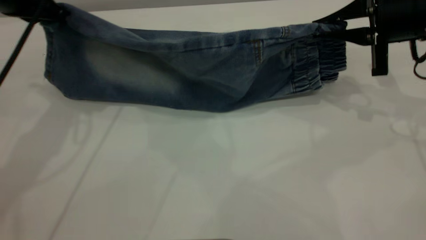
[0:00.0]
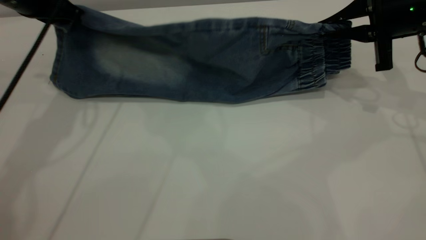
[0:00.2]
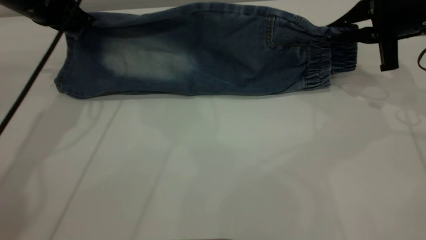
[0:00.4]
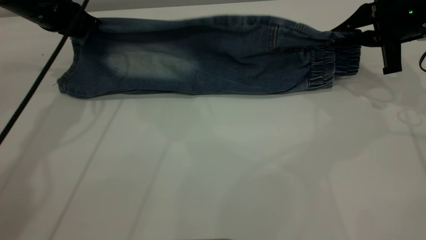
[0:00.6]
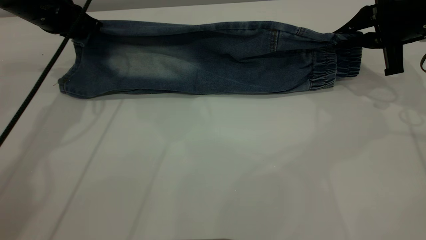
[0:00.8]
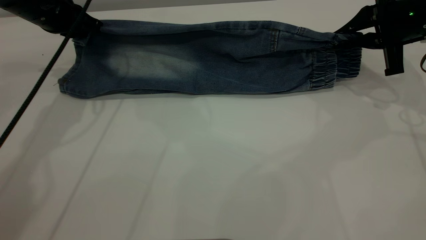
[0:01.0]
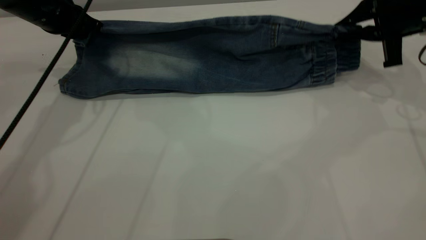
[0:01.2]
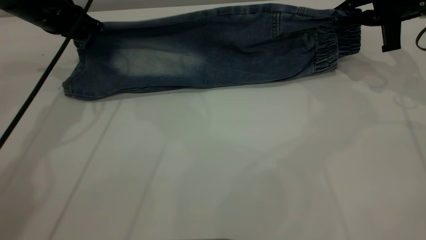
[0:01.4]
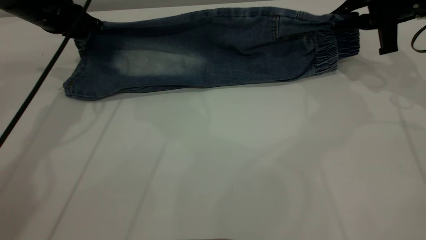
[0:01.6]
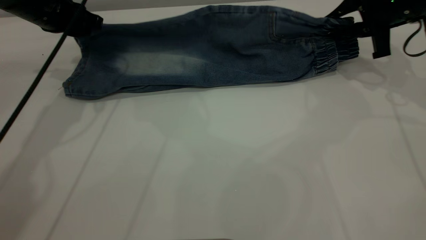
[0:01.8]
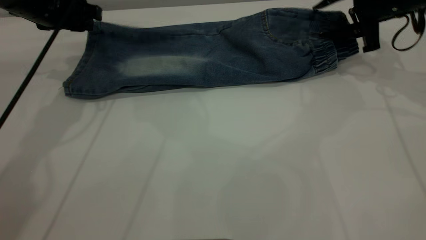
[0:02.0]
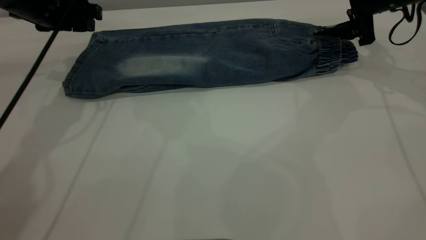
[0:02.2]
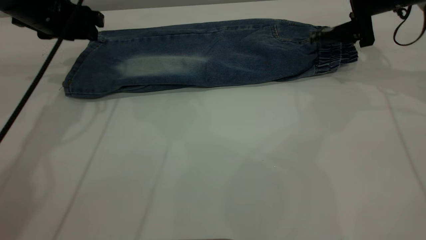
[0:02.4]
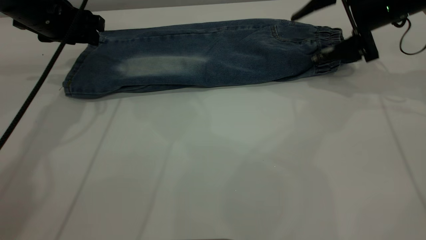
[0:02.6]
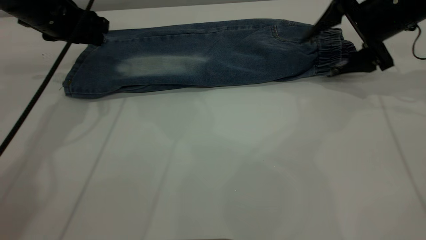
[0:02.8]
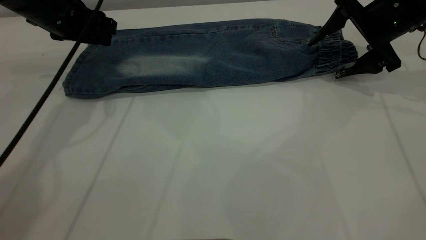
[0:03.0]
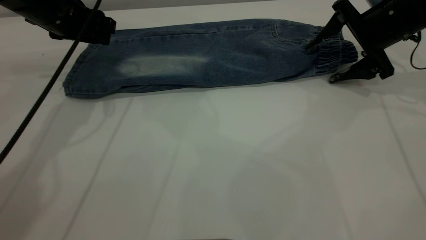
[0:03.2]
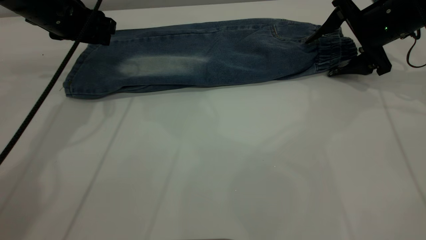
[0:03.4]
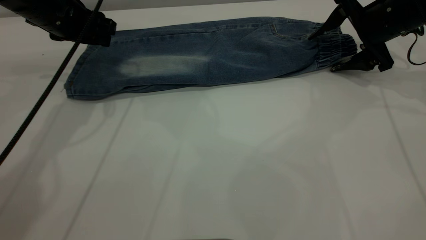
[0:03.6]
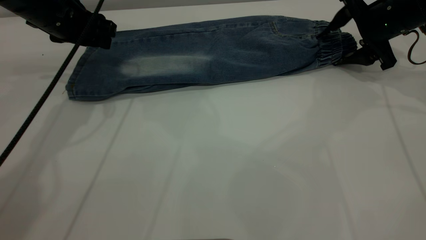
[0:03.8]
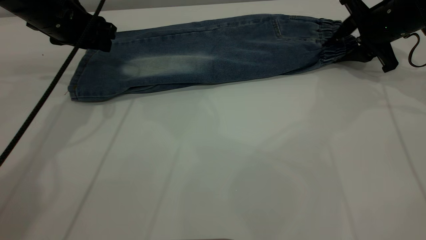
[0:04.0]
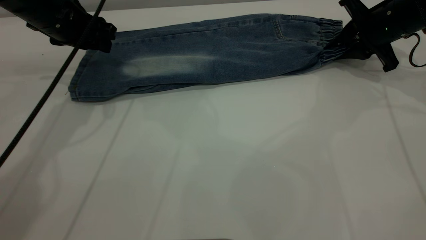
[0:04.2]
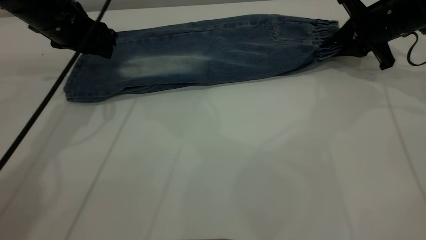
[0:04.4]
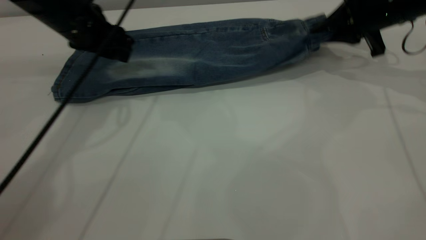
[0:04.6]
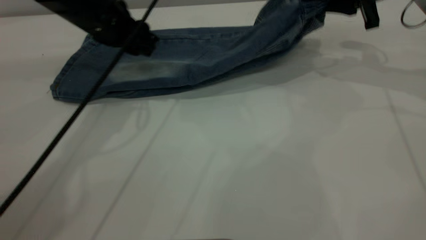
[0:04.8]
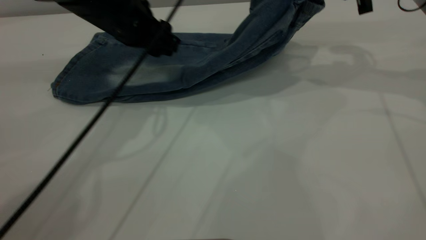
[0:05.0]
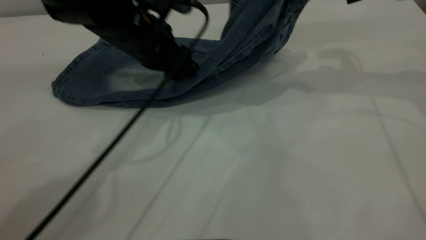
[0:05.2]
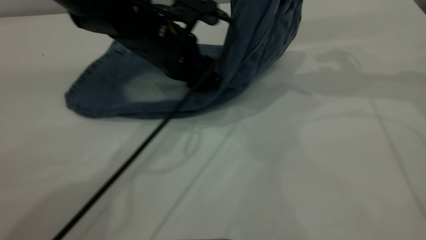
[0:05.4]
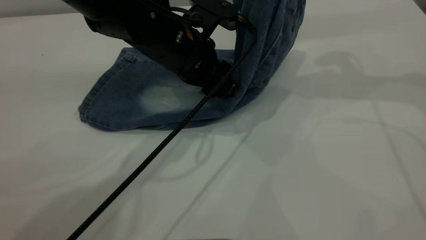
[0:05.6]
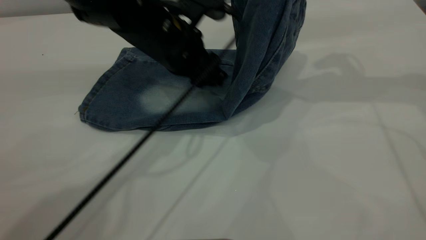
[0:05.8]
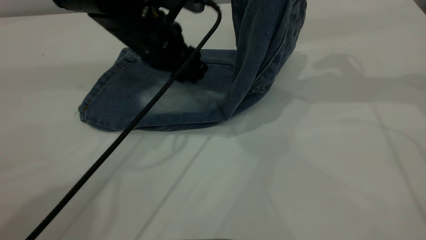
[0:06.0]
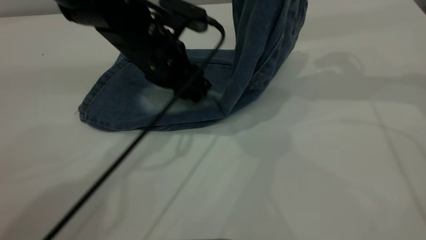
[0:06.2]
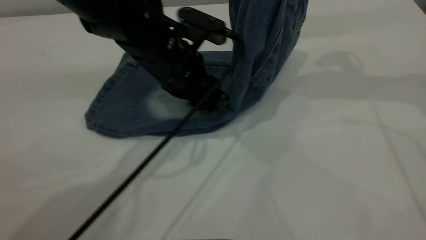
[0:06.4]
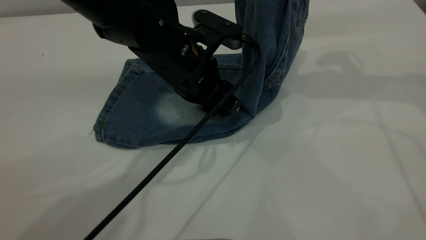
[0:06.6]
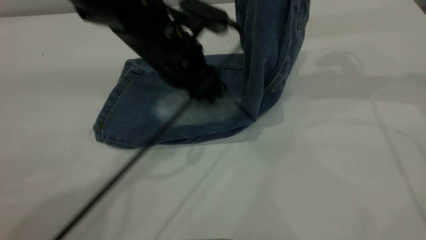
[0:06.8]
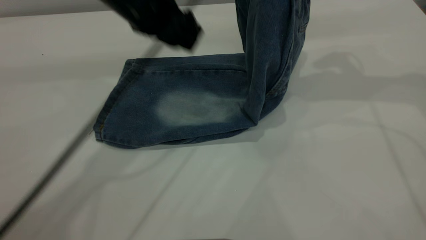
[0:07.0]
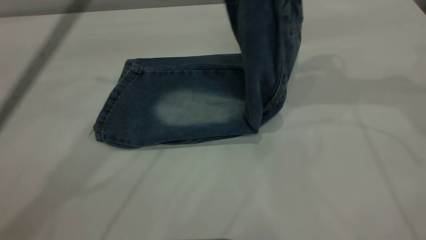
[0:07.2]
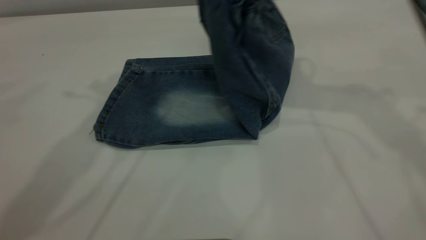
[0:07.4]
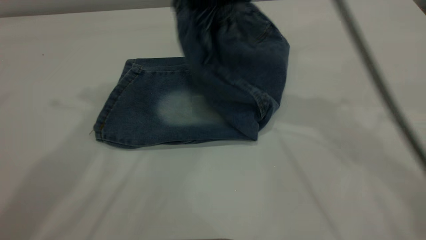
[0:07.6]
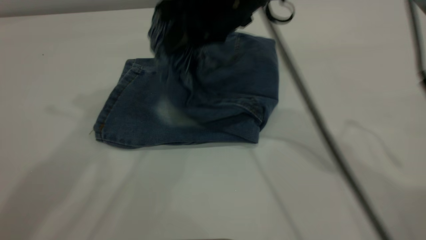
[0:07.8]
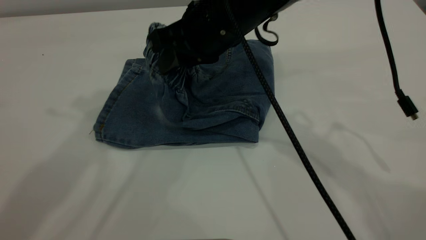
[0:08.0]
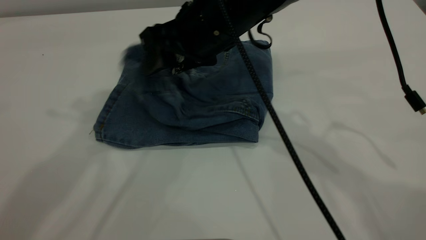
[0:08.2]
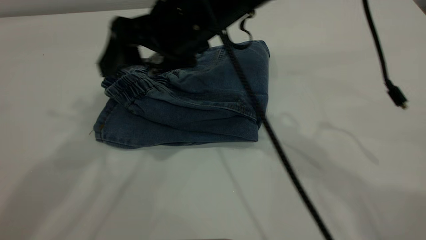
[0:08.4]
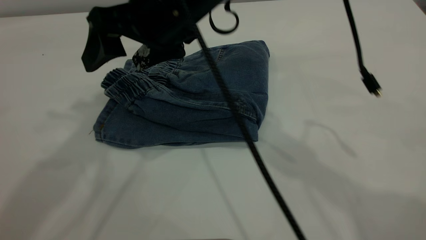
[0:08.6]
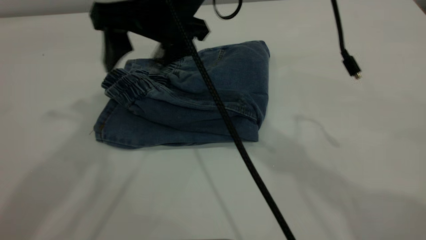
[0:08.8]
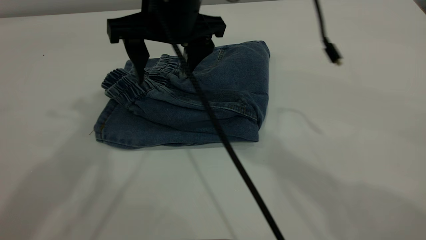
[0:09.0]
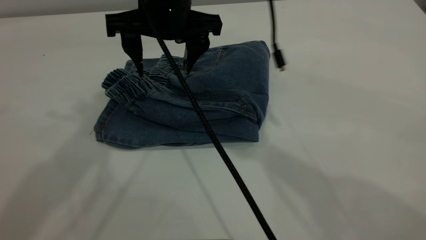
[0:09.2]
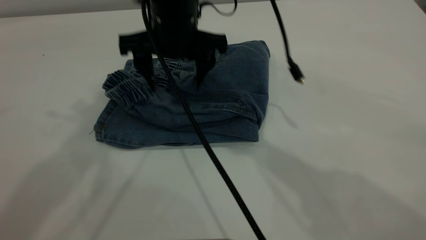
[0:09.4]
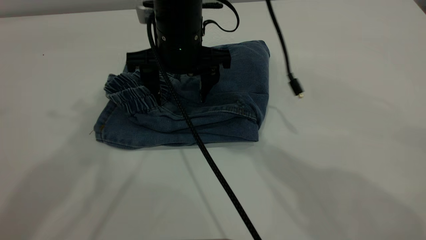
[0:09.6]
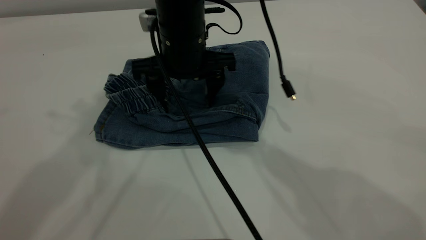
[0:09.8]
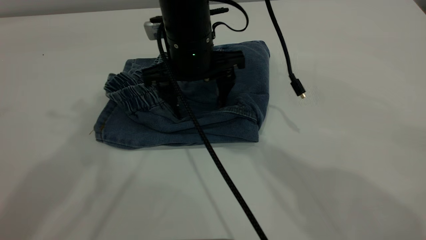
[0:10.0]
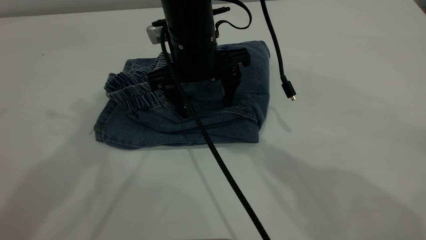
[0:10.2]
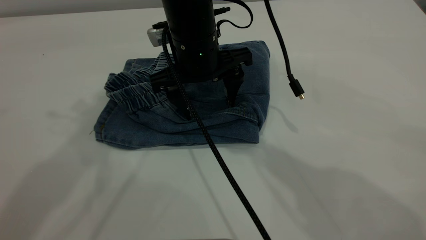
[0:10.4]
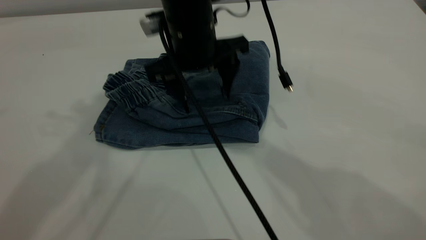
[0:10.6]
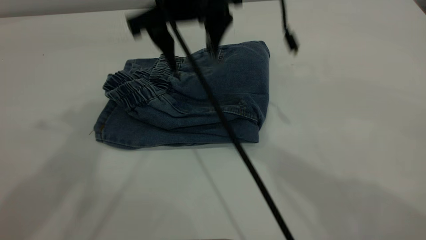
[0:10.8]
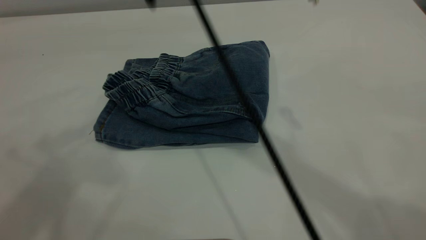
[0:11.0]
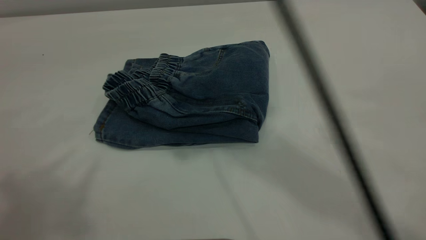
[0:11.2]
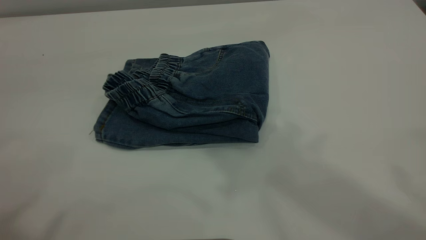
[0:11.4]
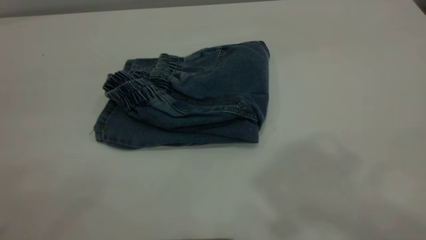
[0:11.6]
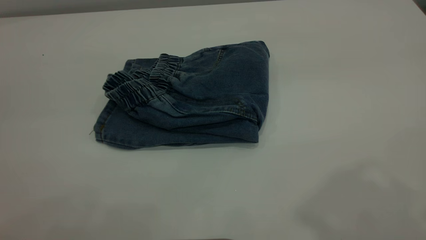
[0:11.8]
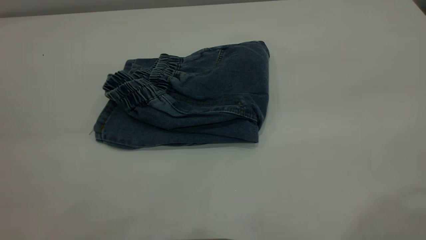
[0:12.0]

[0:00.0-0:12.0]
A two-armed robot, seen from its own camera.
Step, 0:00.0 to 0:02.2: Fold the bottom of the pants upward.
Step, 0:02.4 to 0:08.6: Fold your pants from right to left.
0:00.0 to 0:01.6: The left gripper travels downward and forward by approximately 10 cm. The right gripper moves approximately 5 cm.
0:01.6 to 0:03.0: The left gripper opens up; the right gripper opens its fingers.
0:03.0 to 0:04.4: The right gripper closes.
0:04.4 to 0:06.0: The left gripper moves to the right, some 15 cm; the right gripper goes about 15 cm upward.
0:06.0 to 0:07.6: The left gripper heads upward, covering about 30 cm. The right gripper goes approximately 15 cm to the left.
0:07.6 to 0:09.0: The right gripper travels to the left by some 10 cm, and opens.
0:09.0 to 0:10.4: The right gripper heads downward, covering some 5 cm.
0:10.4 to 0:12.0: The left gripper travels backward by approximately 25 cm, while the right gripper moves upward, backward and to the right, about 40 cm.

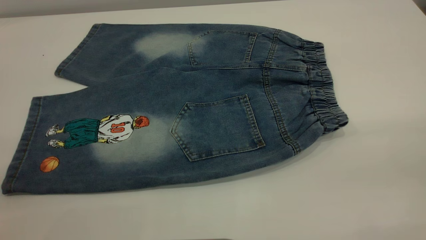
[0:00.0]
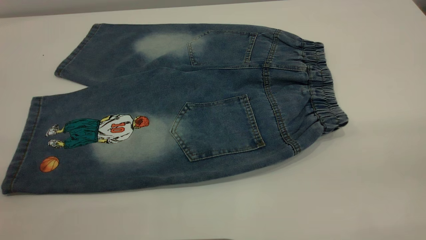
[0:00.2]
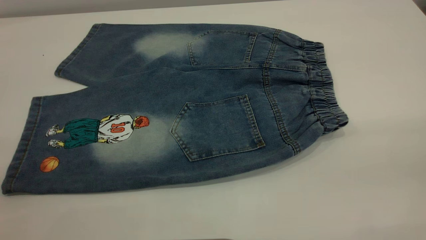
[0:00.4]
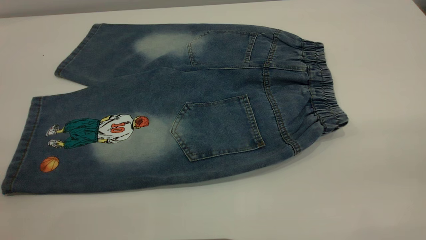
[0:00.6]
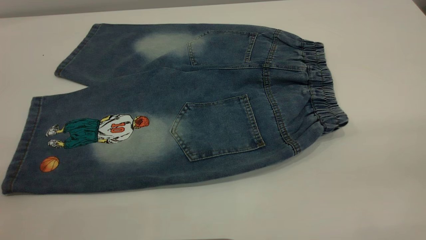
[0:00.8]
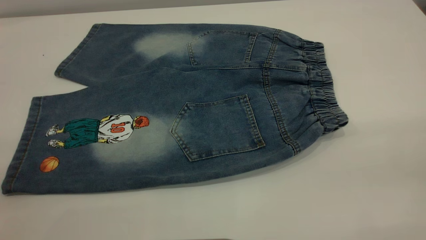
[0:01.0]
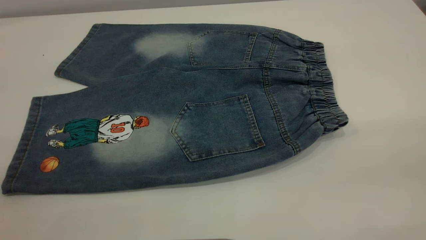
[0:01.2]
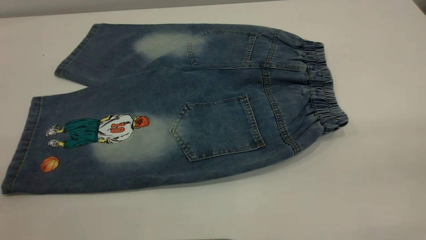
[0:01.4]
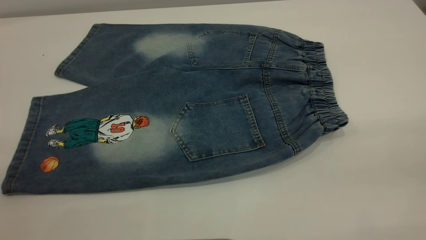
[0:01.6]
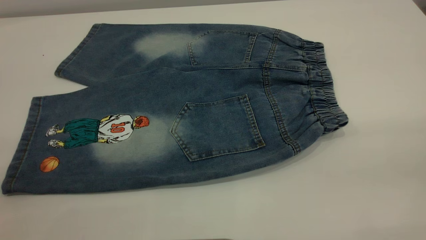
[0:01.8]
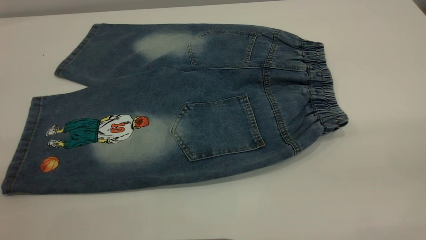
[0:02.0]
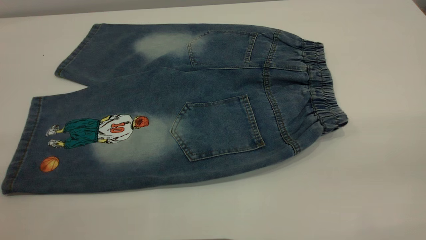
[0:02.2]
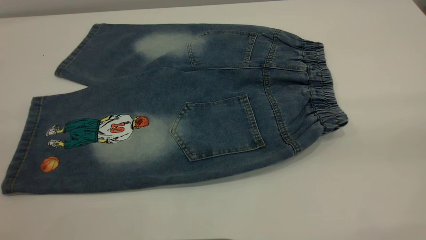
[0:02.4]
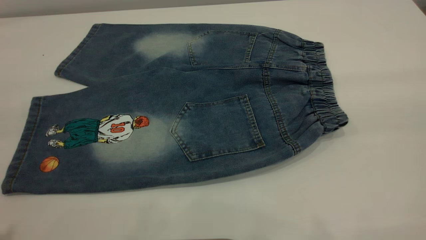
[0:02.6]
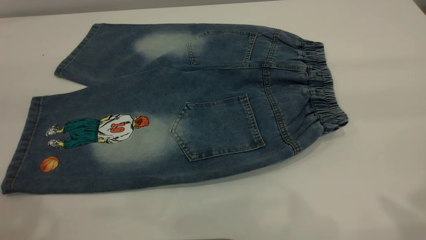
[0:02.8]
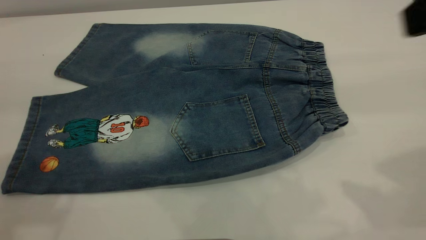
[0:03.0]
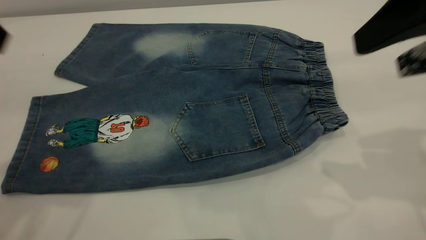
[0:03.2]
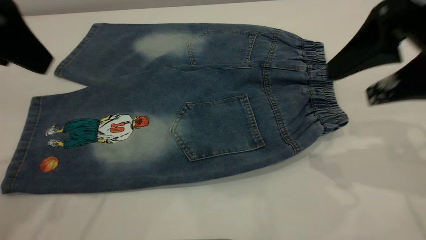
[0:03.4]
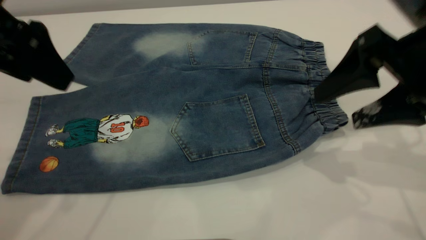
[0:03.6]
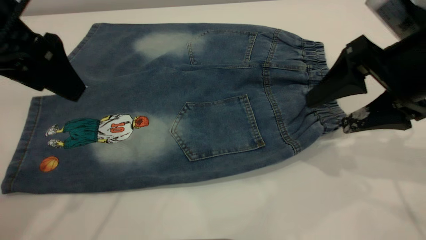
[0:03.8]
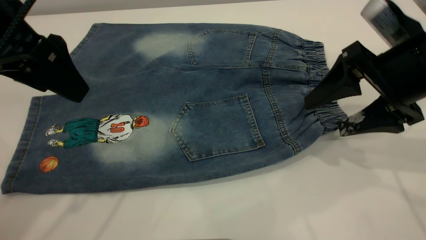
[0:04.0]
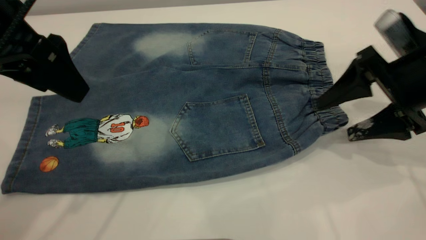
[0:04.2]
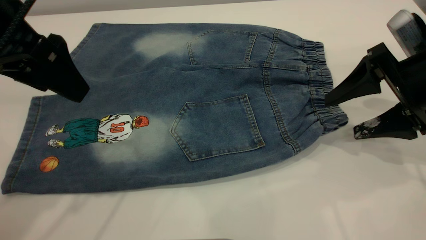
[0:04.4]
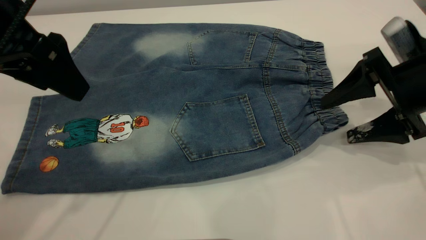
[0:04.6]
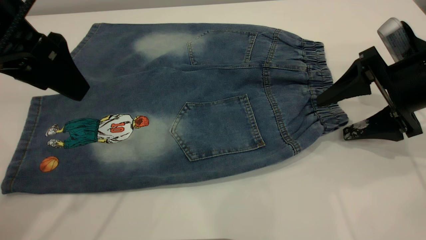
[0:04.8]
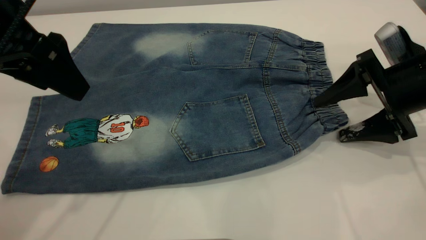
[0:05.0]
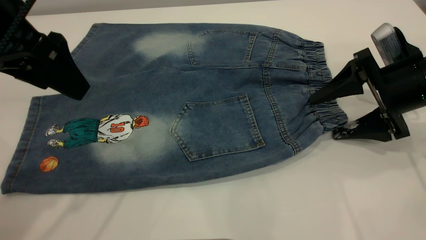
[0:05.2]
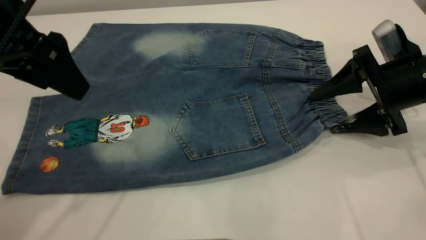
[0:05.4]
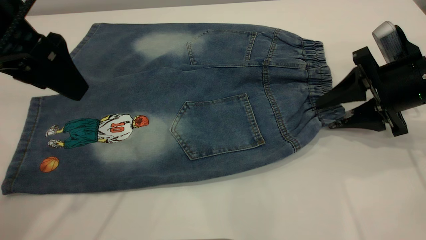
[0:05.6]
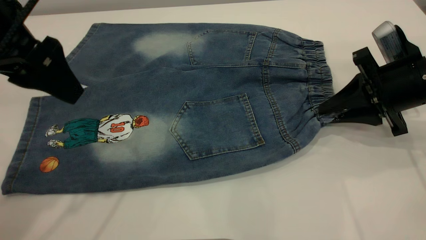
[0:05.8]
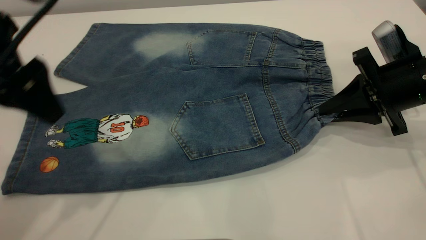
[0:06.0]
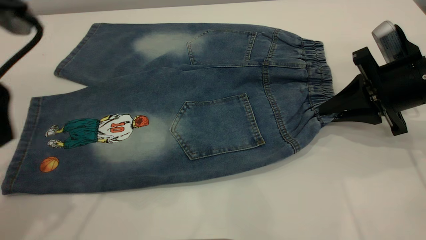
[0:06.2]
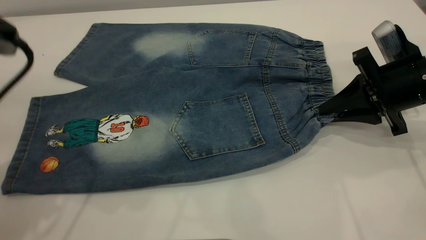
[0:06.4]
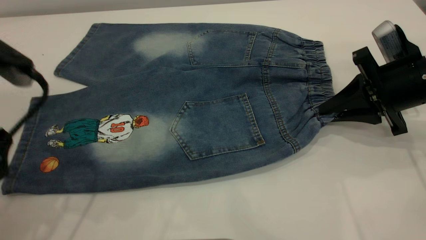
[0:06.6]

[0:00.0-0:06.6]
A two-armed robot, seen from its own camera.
0:00.0 to 0:01.6: The two grippers keep their place.
0:01.6 to 0:03.2: The right gripper moves forward, roughly 25 cm.
0:03.2 to 0:05.0: The right gripper travels downward and forward by some 20 cm, while the left gripper goes roughly 5 cm downward.
0:05.0 to 0:06.6: The right gripper closes. Meanwhile the left gripper goes some 5 cm downward.
